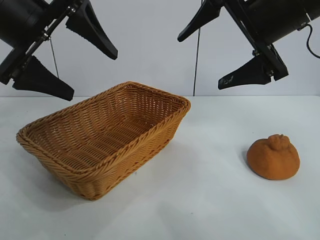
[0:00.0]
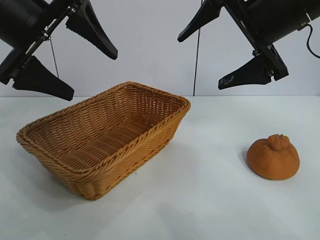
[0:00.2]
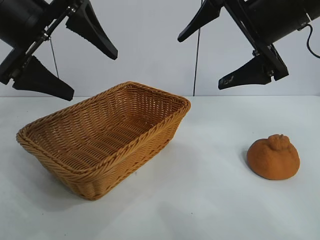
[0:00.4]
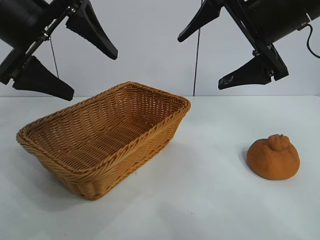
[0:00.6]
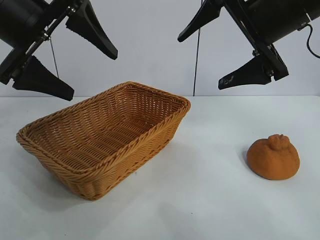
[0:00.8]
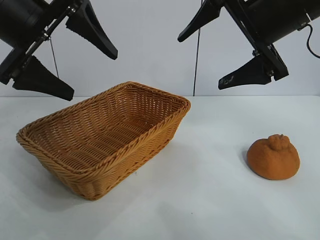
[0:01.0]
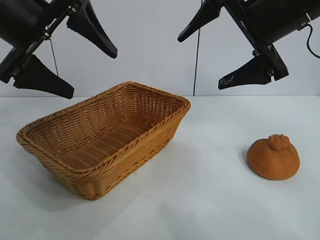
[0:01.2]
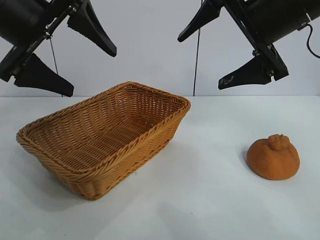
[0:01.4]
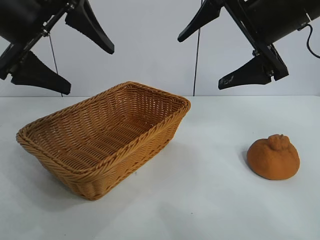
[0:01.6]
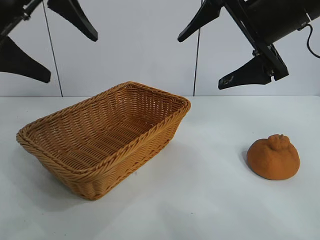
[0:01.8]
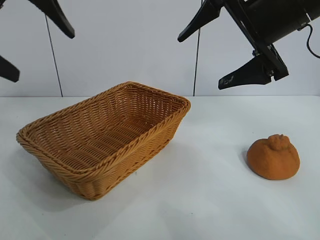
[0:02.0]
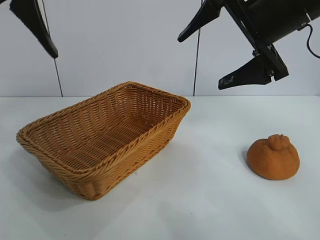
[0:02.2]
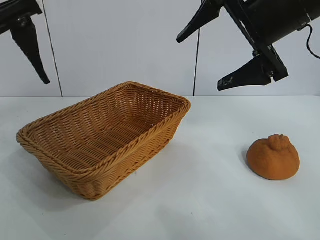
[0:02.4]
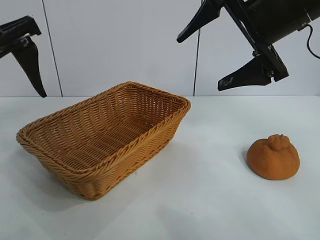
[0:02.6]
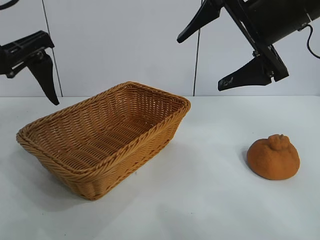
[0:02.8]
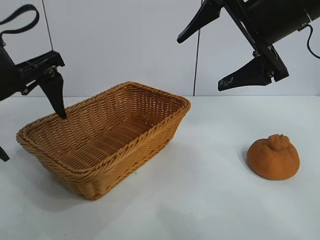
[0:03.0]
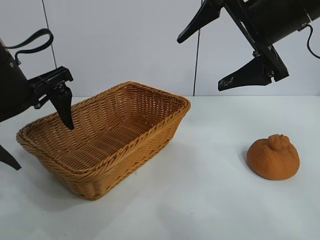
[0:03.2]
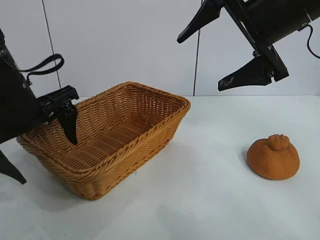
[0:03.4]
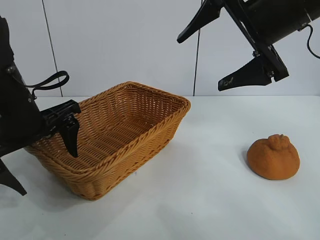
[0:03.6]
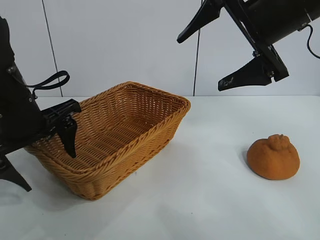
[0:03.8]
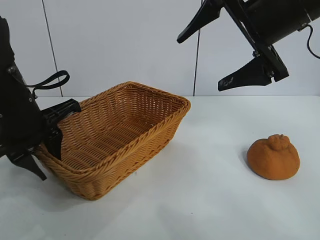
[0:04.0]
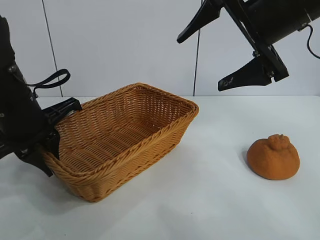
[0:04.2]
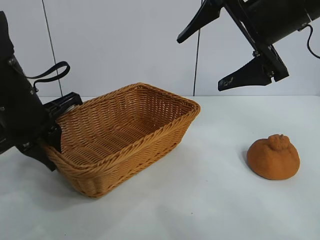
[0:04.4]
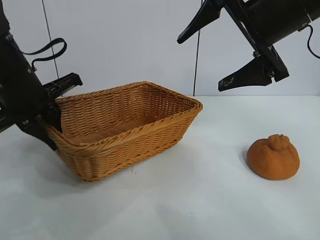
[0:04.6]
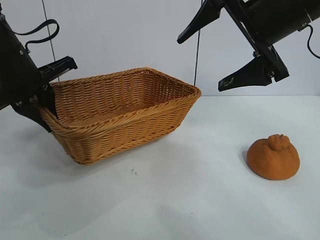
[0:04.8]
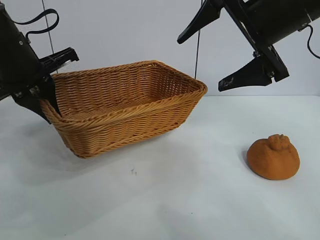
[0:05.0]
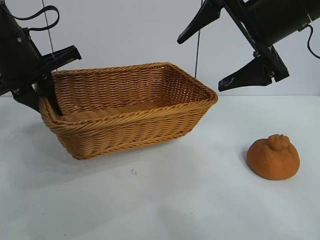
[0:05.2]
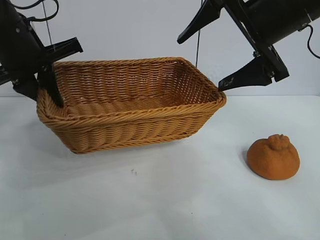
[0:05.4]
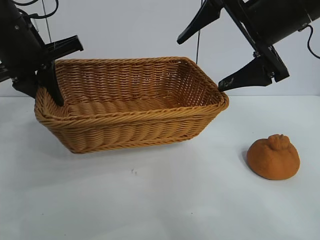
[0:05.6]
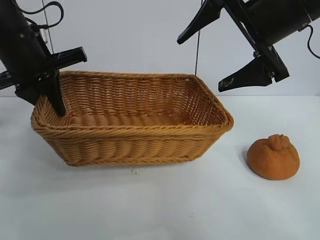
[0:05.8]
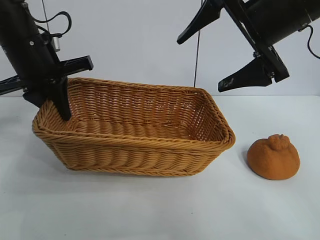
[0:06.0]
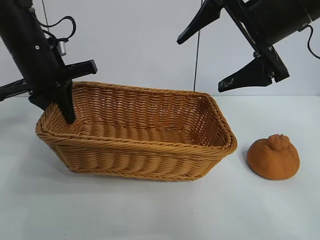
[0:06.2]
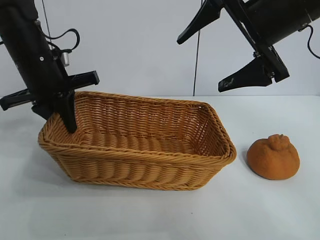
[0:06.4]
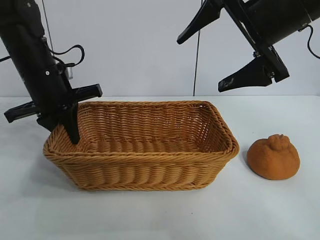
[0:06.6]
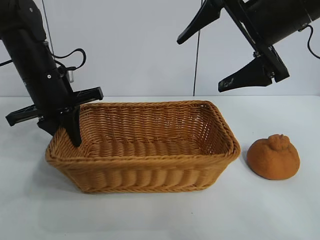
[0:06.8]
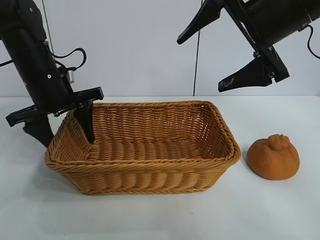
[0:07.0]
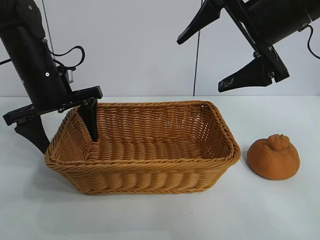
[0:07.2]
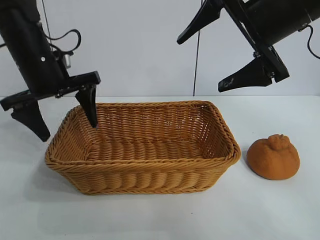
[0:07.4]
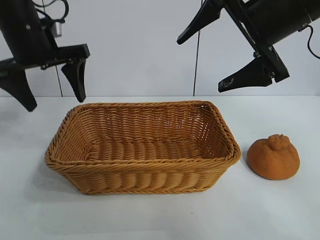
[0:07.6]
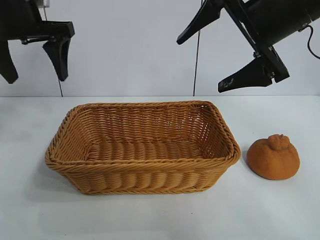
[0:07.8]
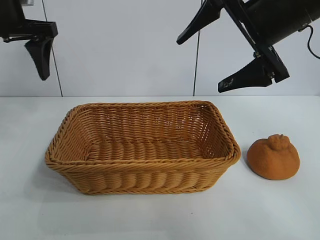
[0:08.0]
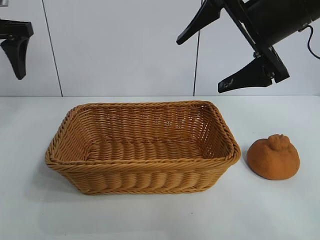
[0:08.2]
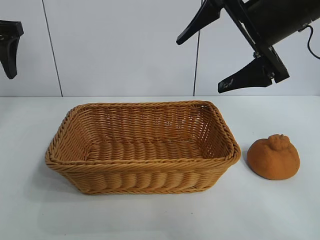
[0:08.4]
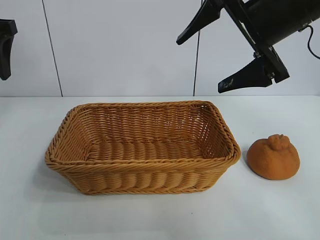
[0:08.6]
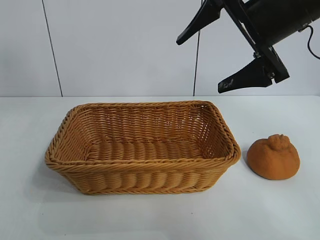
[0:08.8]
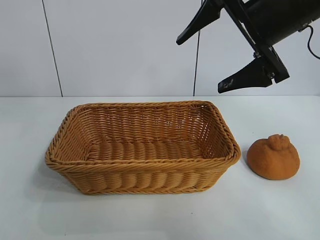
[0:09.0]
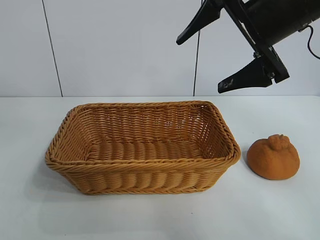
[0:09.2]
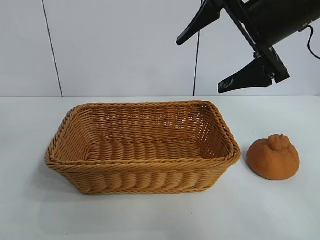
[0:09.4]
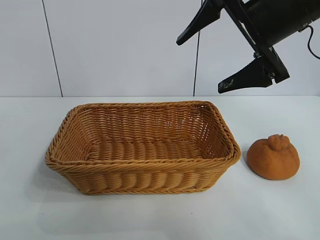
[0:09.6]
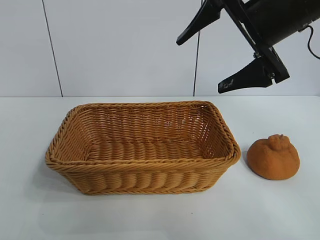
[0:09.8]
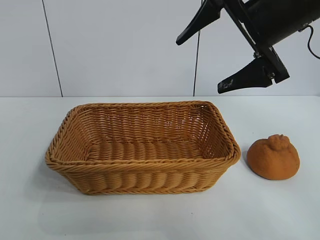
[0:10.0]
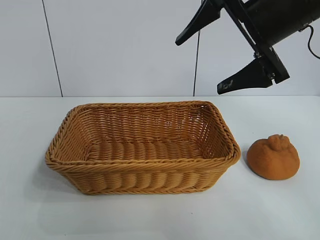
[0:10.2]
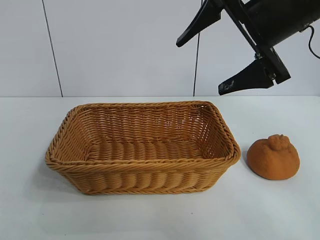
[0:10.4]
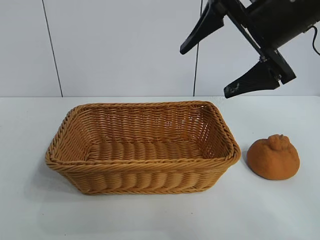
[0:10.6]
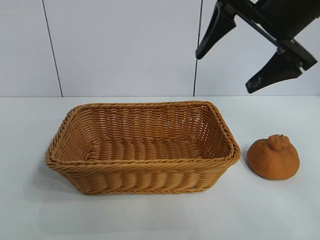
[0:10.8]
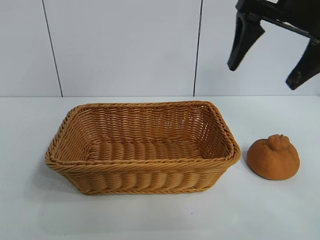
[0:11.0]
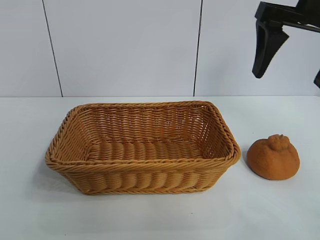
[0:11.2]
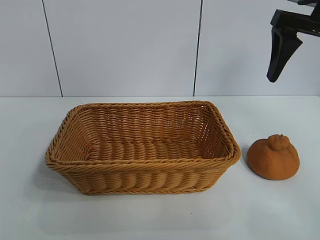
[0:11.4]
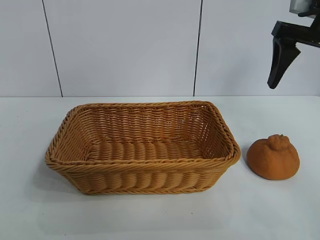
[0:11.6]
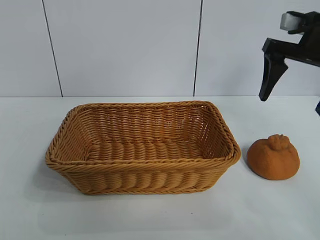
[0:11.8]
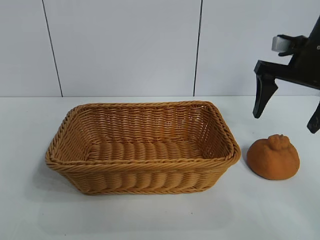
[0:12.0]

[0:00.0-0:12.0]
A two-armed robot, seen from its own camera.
Task of the whole recording: pick up the orange and put it into the basket.
Step, 0:01.0 to 0:04.2: Grasp the basket with left gripper.
Step, 0:04.4 to 0:07.8: Place the basket in the center of view with left gripper.

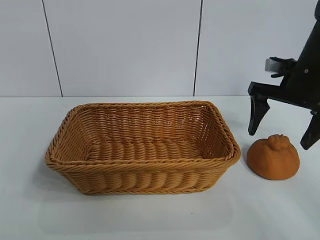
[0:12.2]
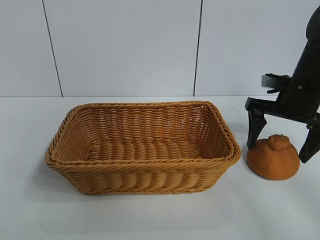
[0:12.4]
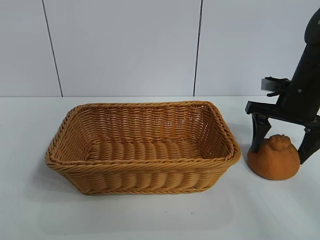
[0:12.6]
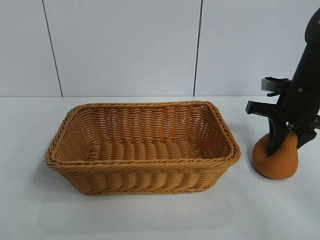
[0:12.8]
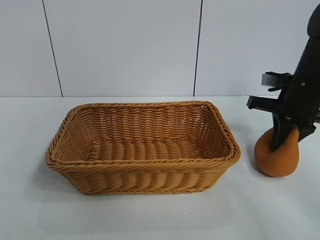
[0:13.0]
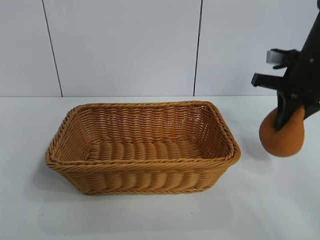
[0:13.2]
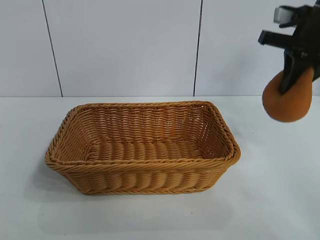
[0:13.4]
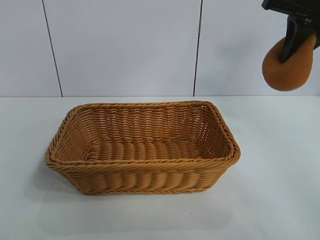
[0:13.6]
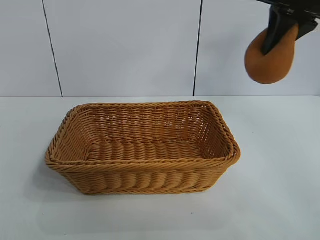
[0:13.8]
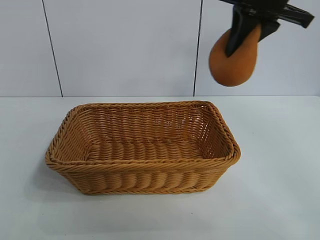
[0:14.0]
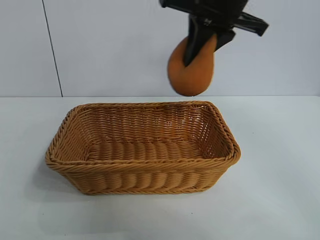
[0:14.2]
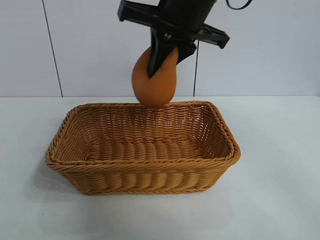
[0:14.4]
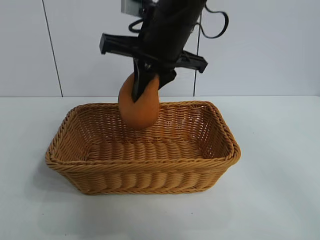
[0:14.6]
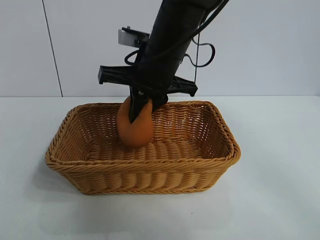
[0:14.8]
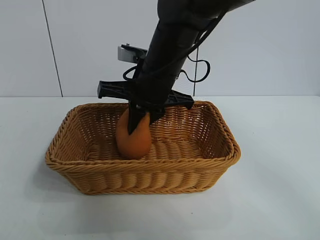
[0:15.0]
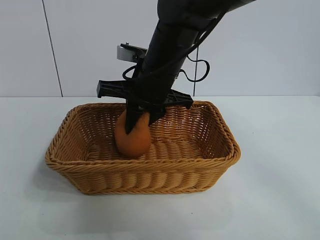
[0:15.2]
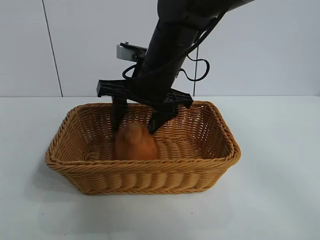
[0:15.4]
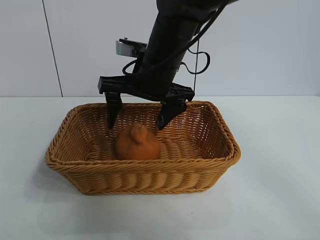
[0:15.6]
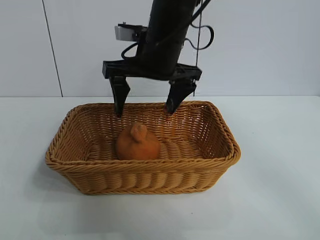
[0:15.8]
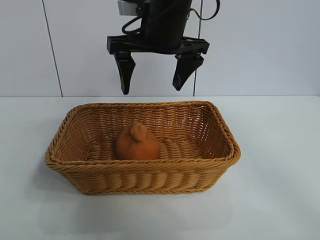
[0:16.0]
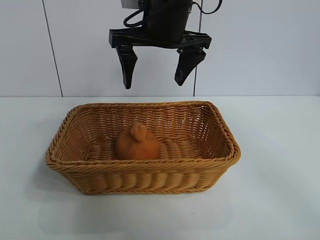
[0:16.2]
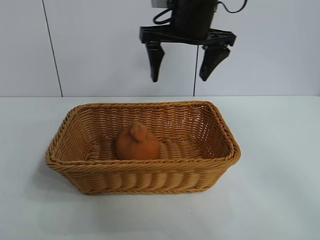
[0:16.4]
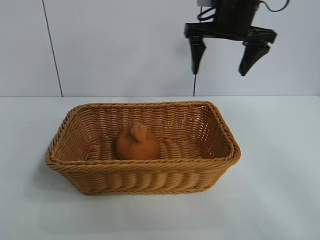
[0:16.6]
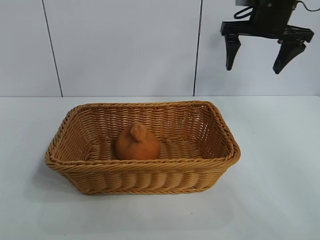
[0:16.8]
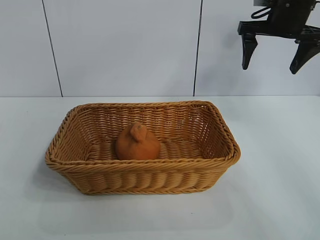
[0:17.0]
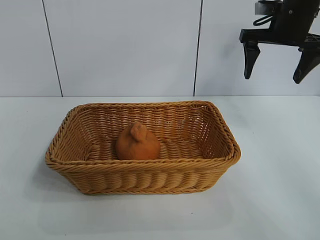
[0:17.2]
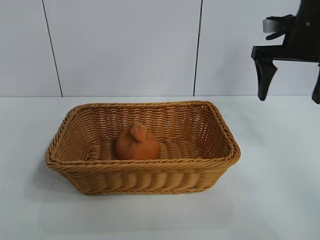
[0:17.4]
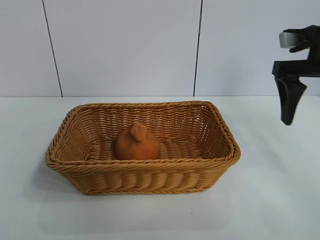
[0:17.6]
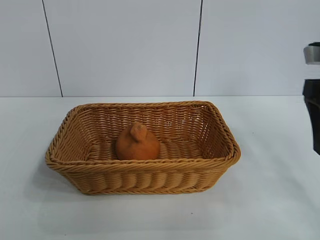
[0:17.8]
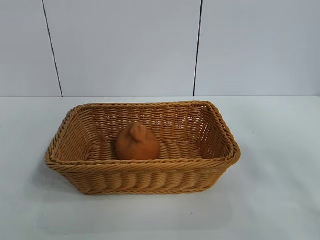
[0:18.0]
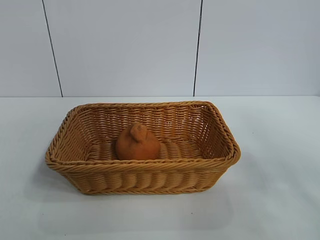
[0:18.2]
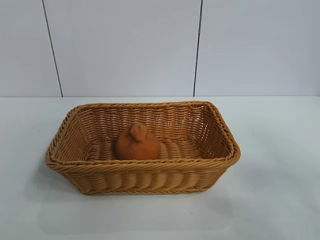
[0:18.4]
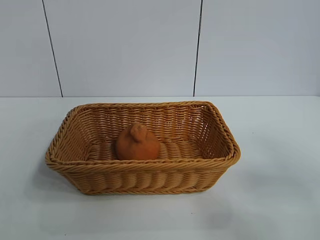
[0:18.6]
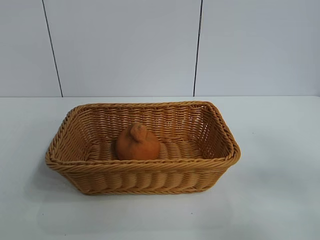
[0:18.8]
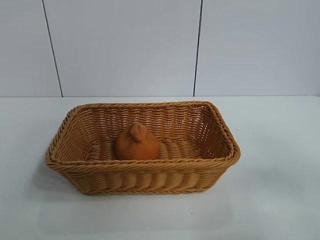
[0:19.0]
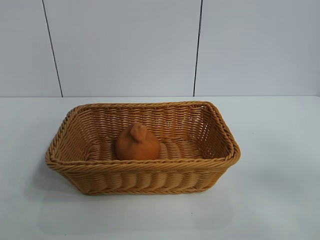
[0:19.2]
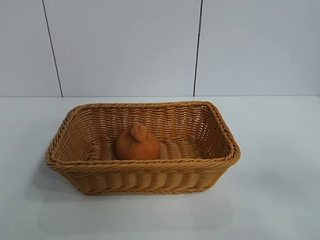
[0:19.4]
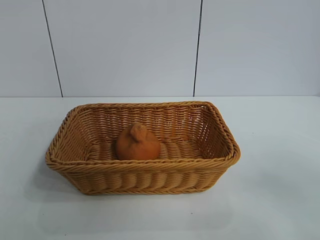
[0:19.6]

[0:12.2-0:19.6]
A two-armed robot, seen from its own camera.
Task of the whole recording: pick up the orange and put it into the basket.
Step, 0:13.0 to 0:15.8: Place the orange in the basket with right gripper.
